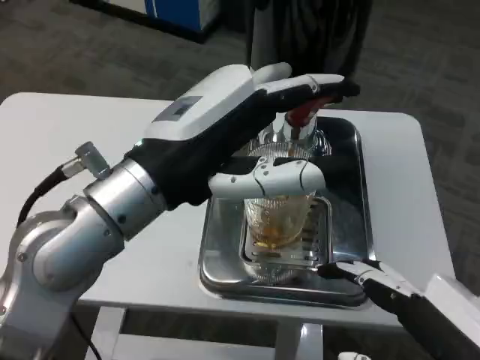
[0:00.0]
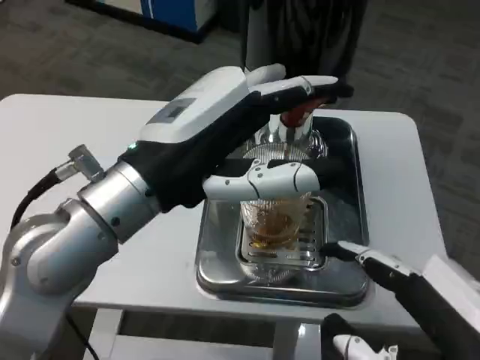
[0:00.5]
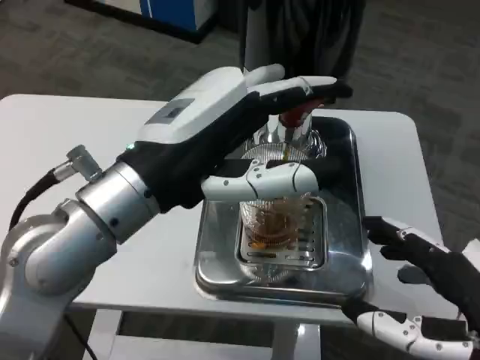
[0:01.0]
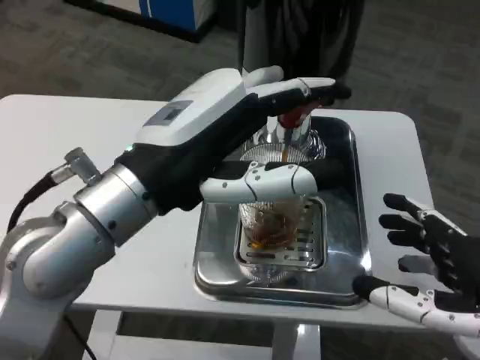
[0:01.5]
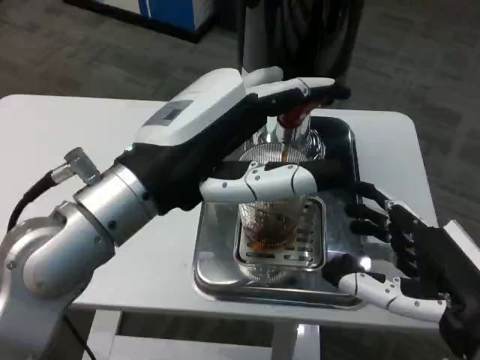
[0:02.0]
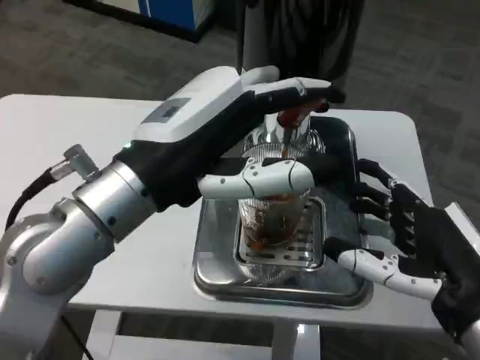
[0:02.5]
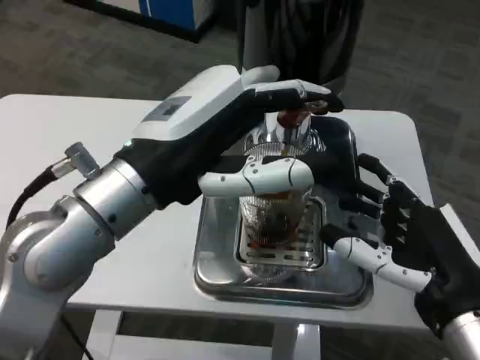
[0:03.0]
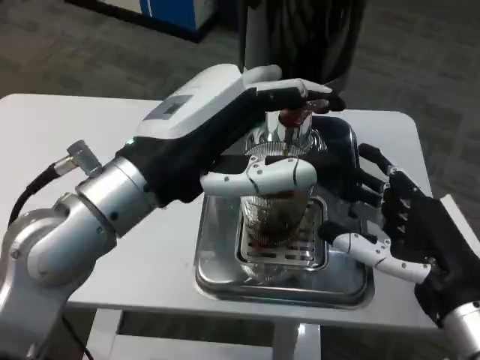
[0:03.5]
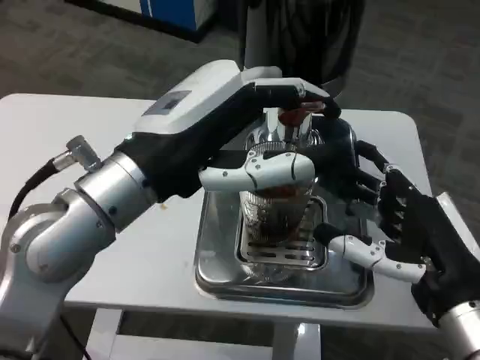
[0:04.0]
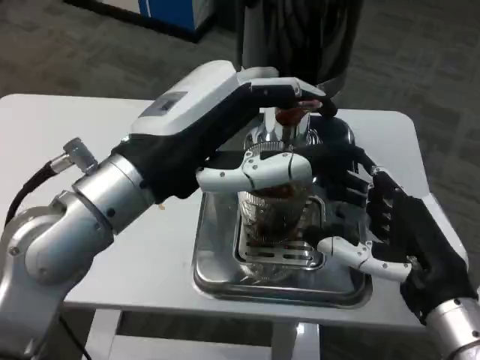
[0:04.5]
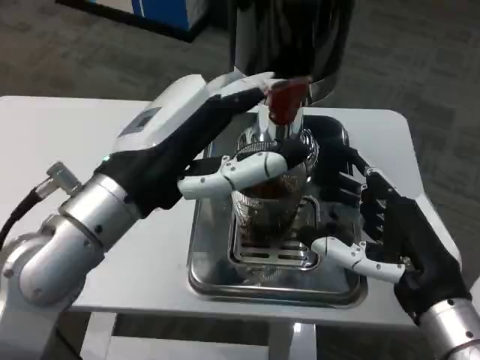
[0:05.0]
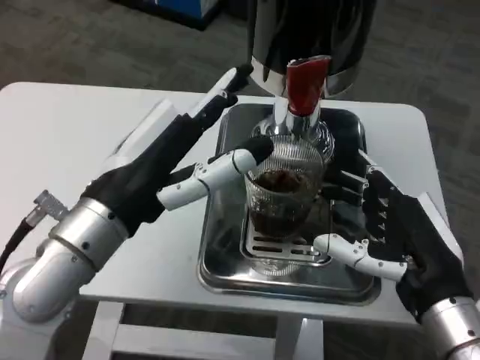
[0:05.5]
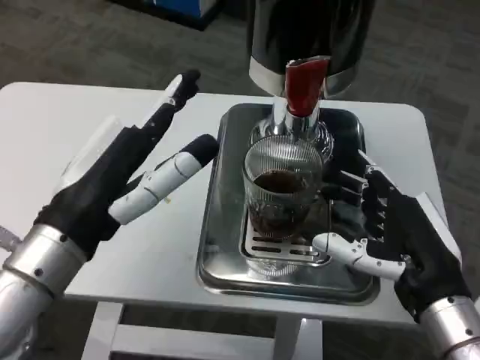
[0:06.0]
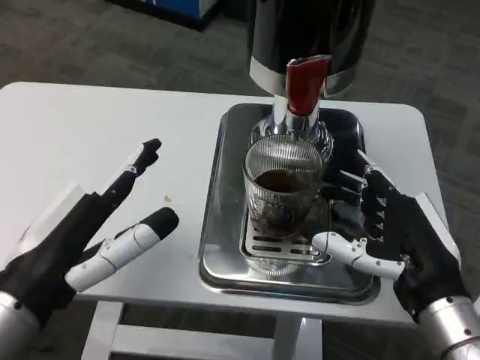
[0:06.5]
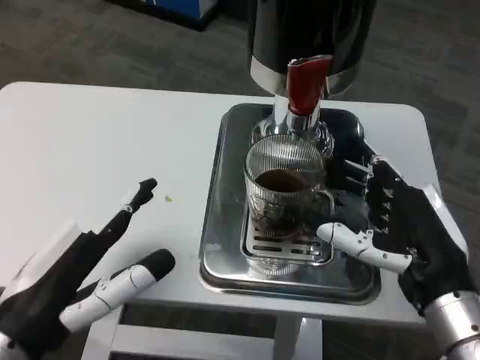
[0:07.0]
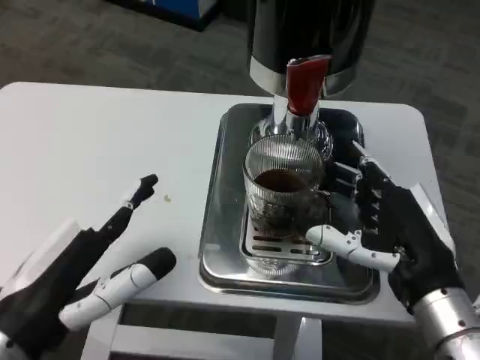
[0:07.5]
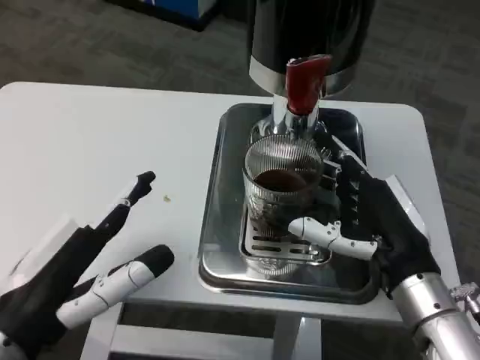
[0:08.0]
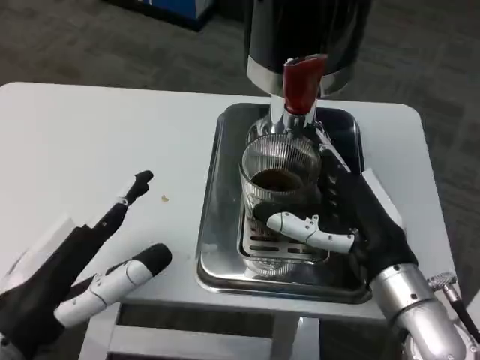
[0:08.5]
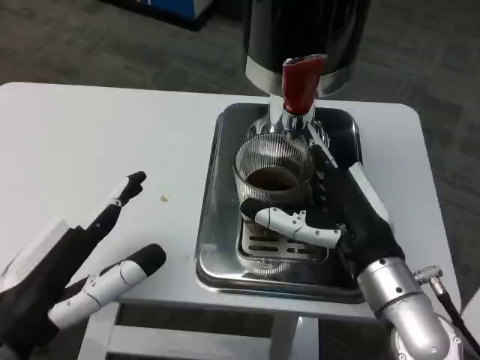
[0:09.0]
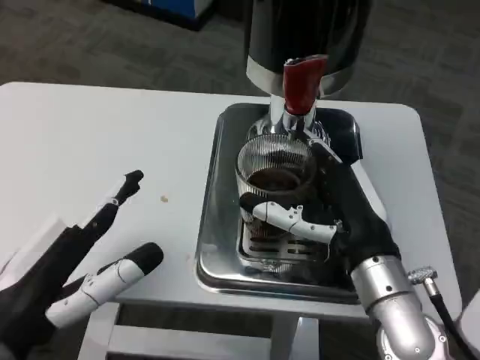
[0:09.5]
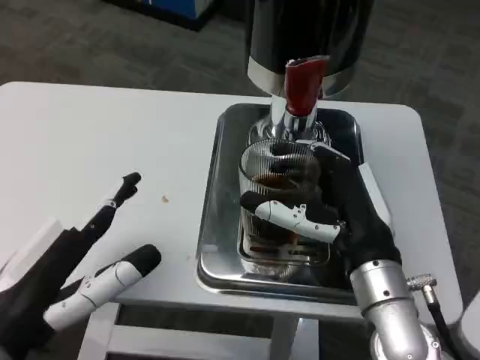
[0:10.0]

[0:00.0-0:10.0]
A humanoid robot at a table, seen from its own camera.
Task of the whole recording: Grasp the cup under the faucet to collect the drink, then remove the cup.
0:00.0 to 0:02.0: The right hand heads forward, covering approximately 10 cm.
0:04.0 to 0:06.0: The left hand heads downward, covering roughly 5 cm.
0:06.0 to 0:08.0: The left hand travels backward by about 5 cm.

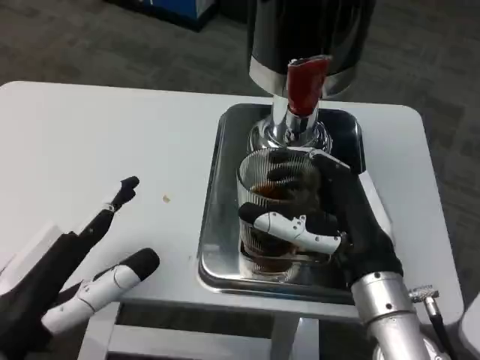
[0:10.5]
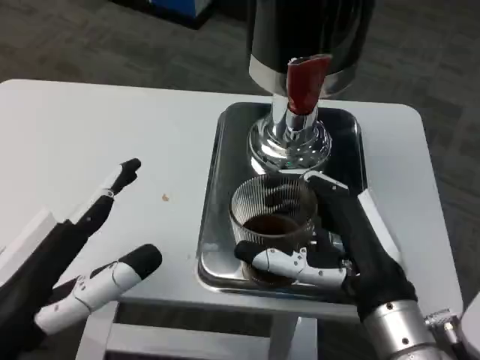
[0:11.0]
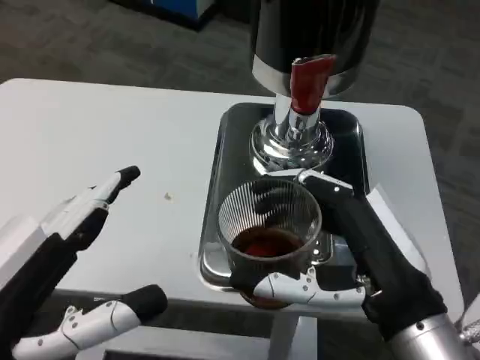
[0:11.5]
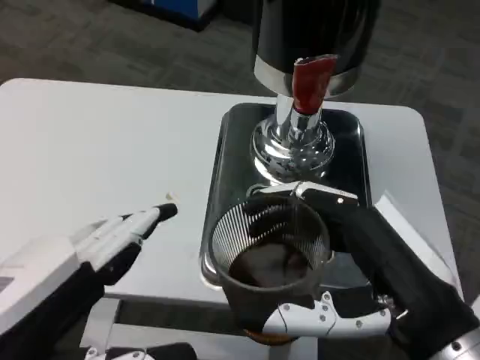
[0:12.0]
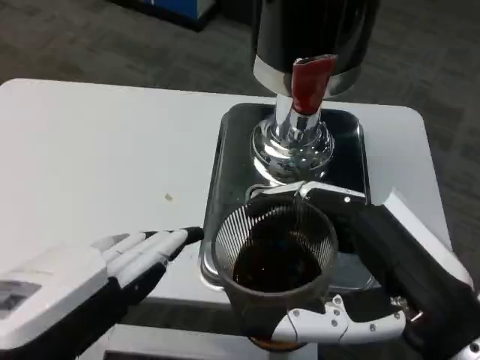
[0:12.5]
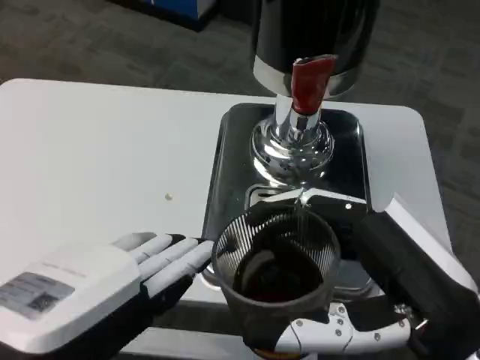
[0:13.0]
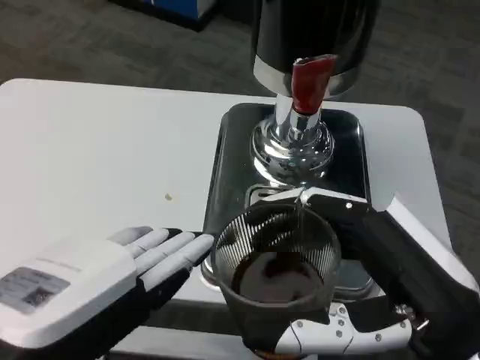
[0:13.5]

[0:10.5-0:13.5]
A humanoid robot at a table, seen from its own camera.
Task of the whole recording: Grasp the cup under the faucet to collect the drink, then remove the cup.
0:10.5 to 0:12.0: The two hands go approximately 10 cm backward and upward.

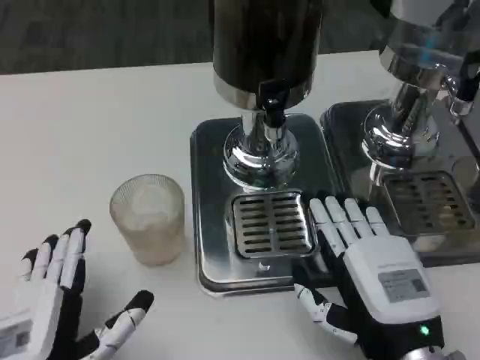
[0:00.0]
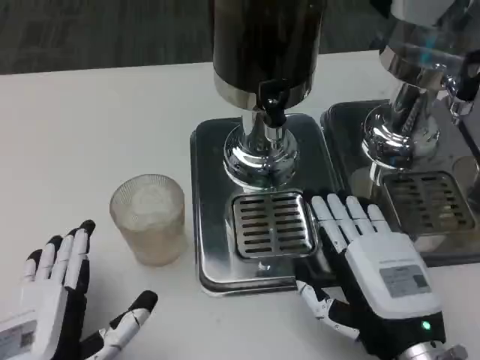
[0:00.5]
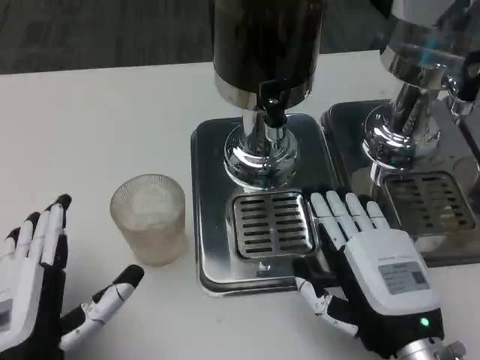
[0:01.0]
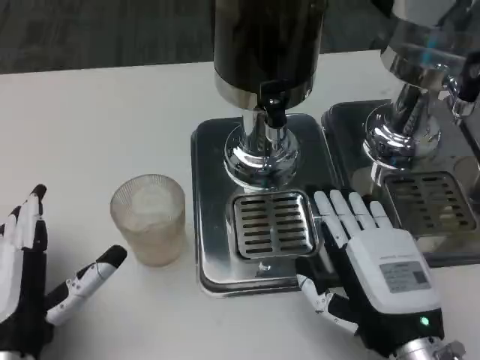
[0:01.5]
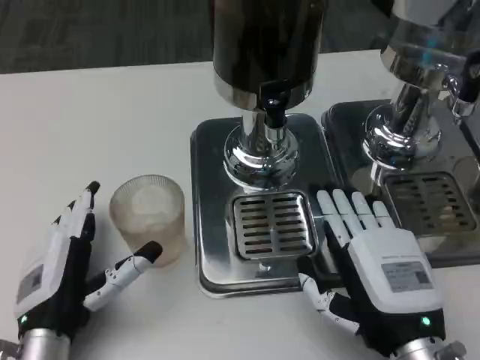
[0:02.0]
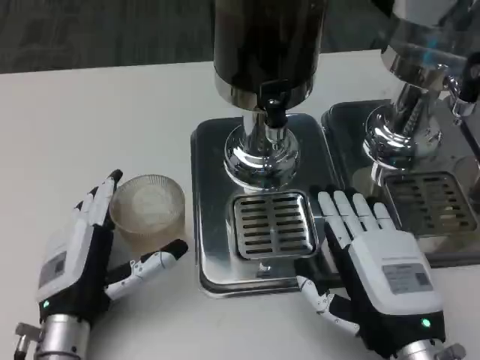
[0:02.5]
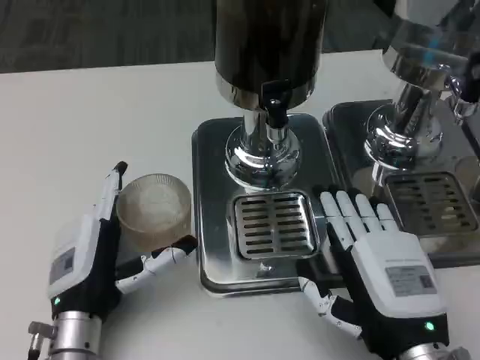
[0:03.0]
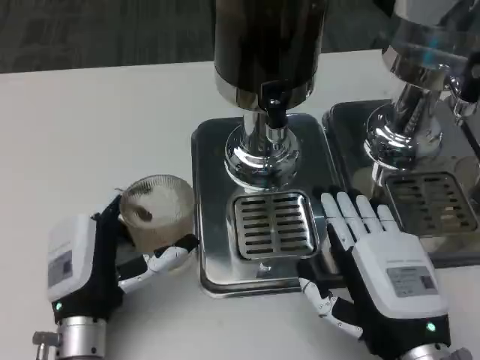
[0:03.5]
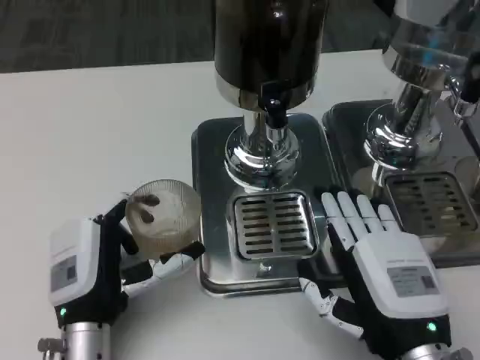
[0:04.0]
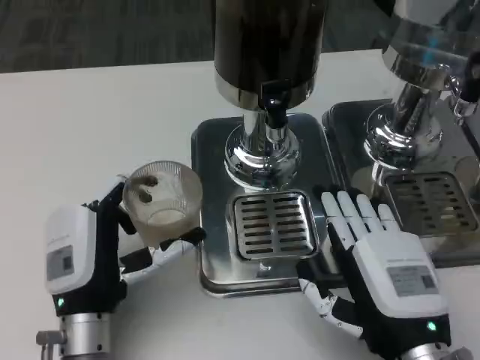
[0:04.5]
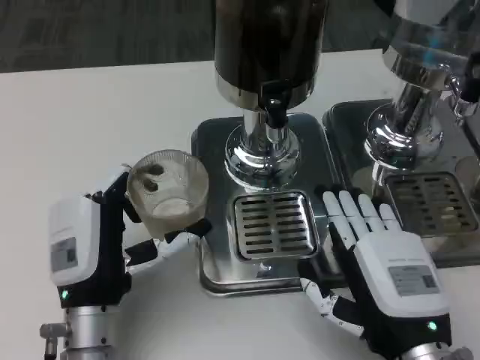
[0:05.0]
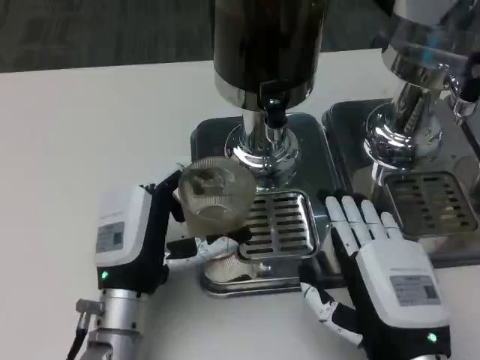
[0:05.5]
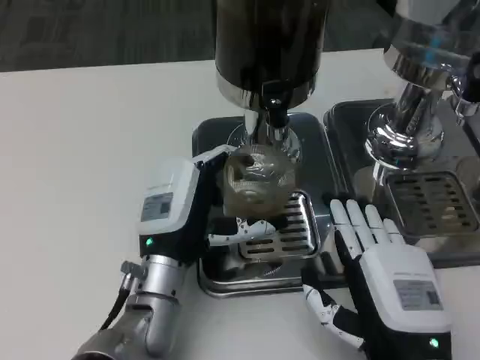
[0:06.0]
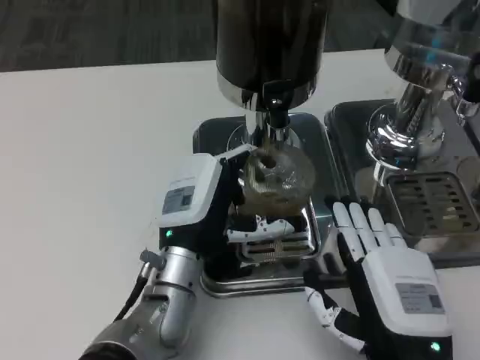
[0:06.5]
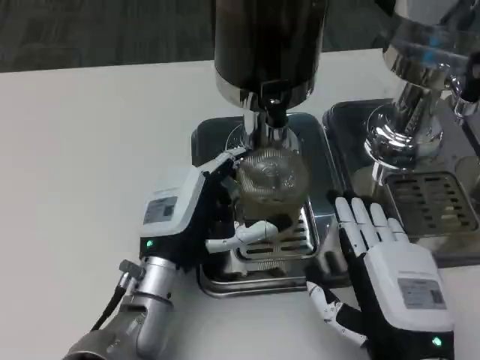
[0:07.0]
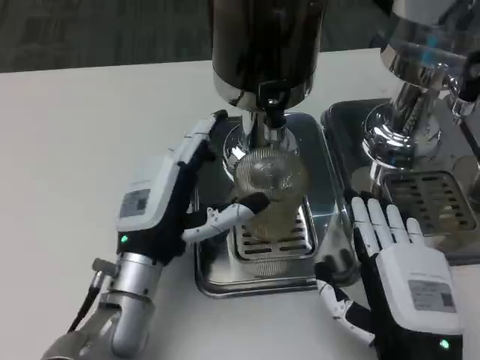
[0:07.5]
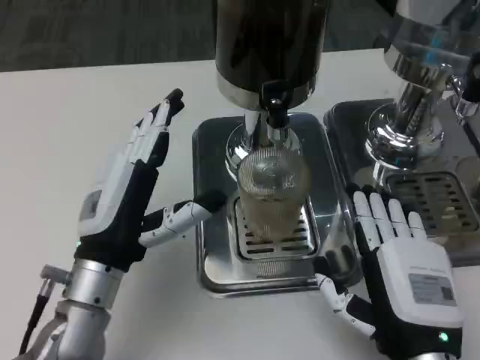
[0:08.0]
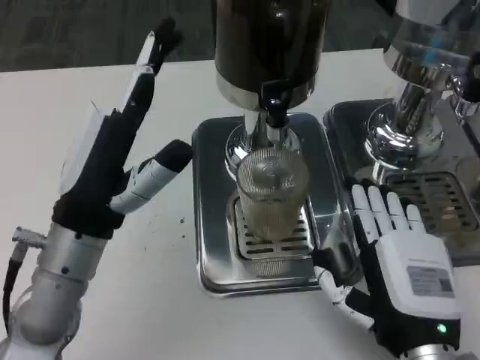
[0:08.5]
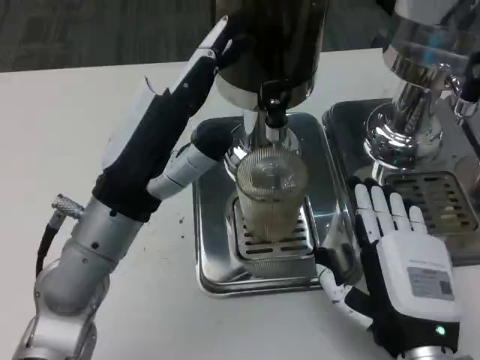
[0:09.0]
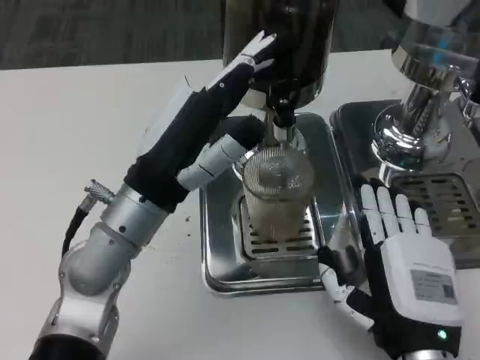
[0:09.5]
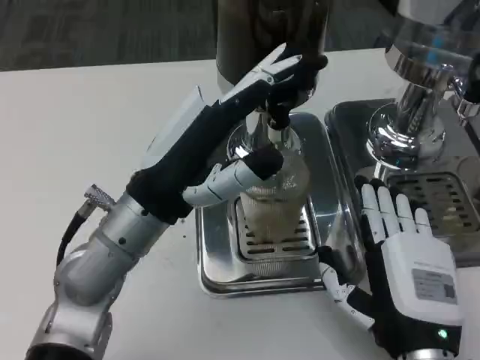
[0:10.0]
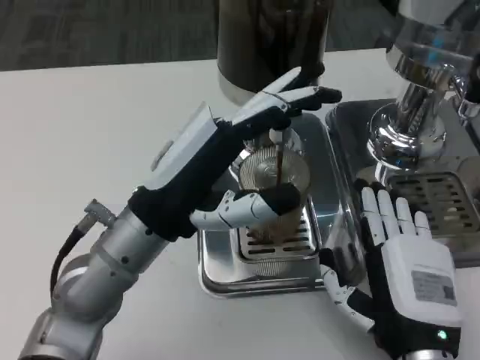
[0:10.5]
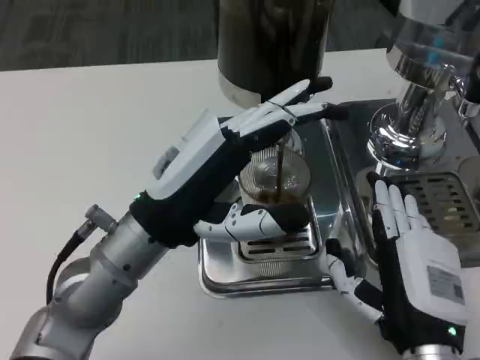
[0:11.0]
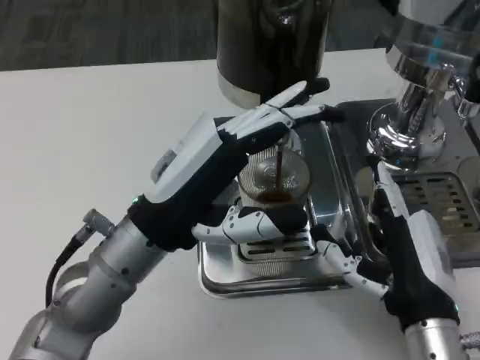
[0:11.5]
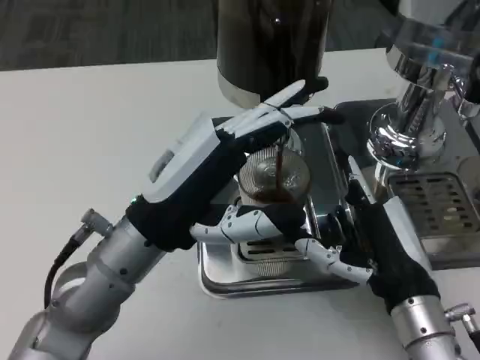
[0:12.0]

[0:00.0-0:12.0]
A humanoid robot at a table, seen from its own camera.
Task of the whole recording: Grasp the cup under the faucet to collect the drink, then remove the cup.
0:00.0 to 0:02.0: The left hand heads forward, covering approximately 10 cm.
0:02.0 to 0:04.0: The hands move only a little.
0:04.0 to 0:06.0: The left hand heads to the right and forward, covering roughly 10 cm.
0:06.0 to 0:08.0: The left hand goes approximately 5 cm to the left.
0:08.0 to 0:10.0: The left hand shifts approximately 5 cm upward.
0:10.0 to 0:12.0: The right hand goes about 5 cm forward.

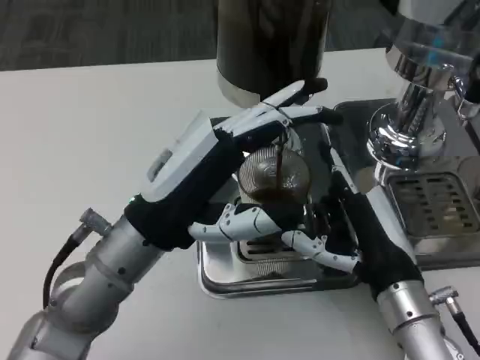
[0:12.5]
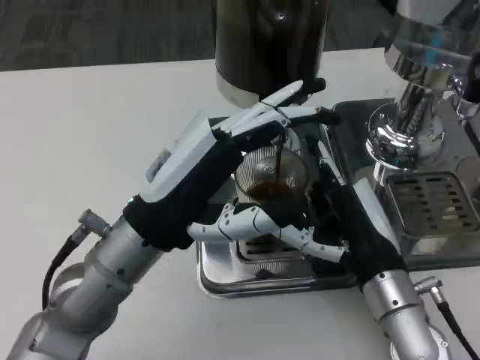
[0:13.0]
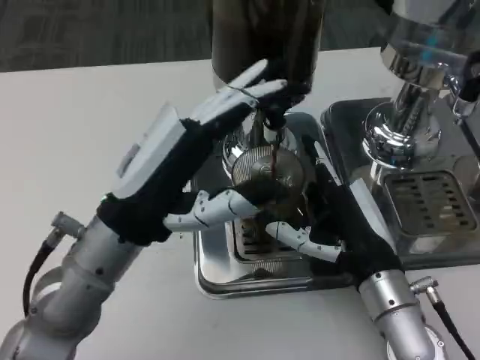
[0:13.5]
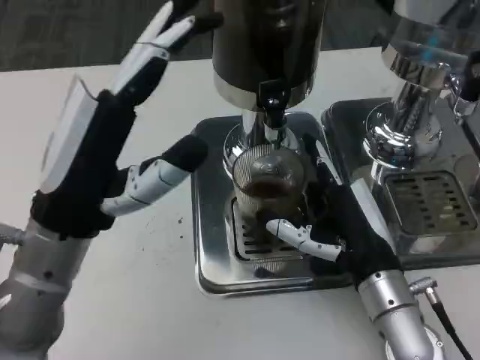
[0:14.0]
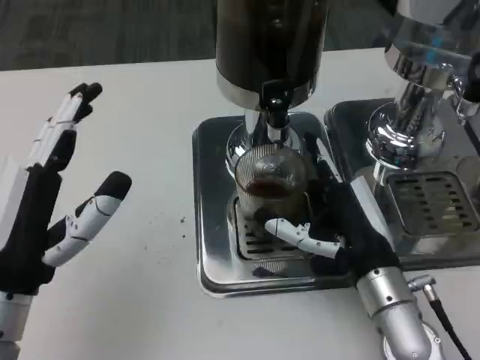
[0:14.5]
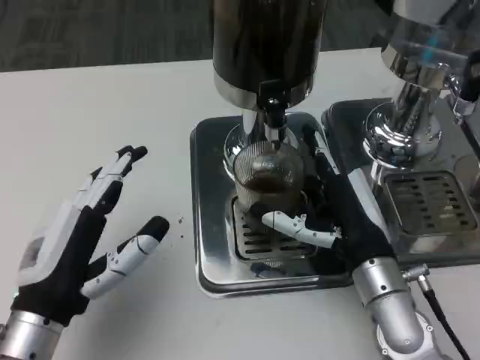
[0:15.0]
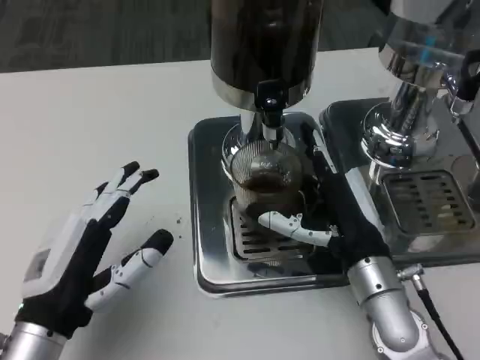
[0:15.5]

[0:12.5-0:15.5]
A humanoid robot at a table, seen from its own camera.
Task of the whole recording: Grasp the cup under the faucet to collect the drink, then remove the cup.
0:14.0 to 0:15.5: The left hand heads downward and backward, covering some 10 cm.
